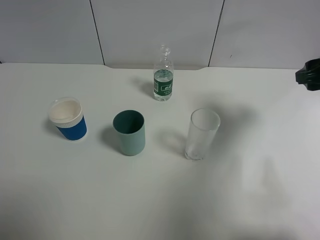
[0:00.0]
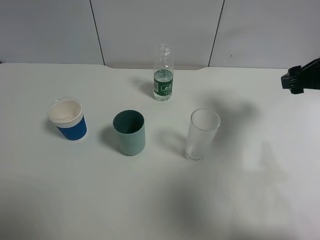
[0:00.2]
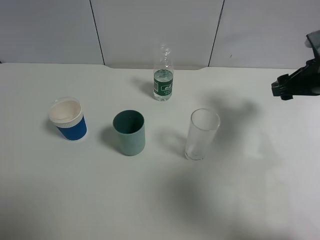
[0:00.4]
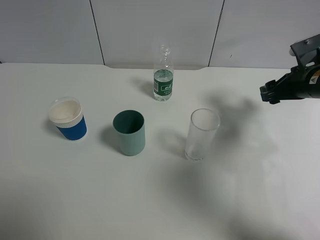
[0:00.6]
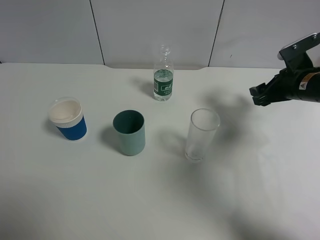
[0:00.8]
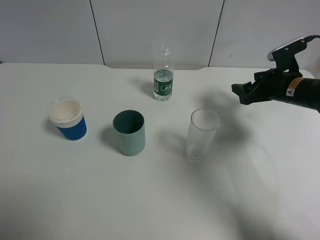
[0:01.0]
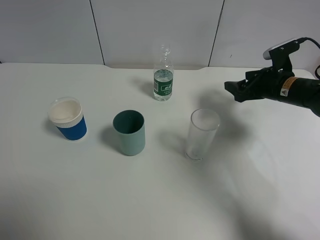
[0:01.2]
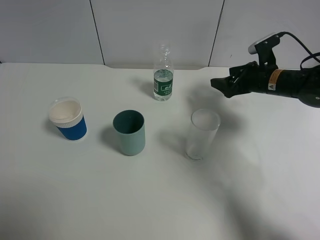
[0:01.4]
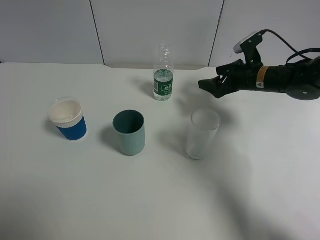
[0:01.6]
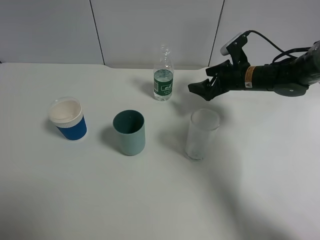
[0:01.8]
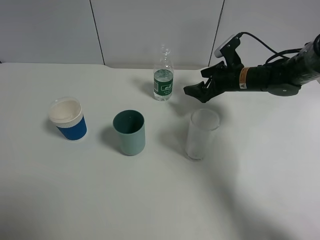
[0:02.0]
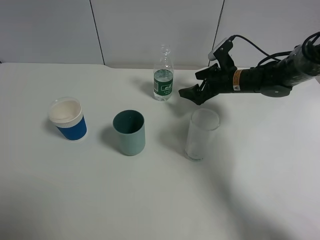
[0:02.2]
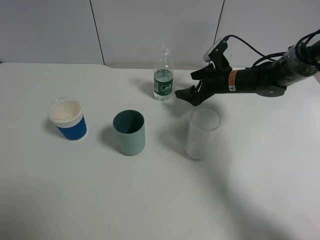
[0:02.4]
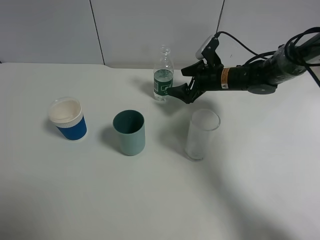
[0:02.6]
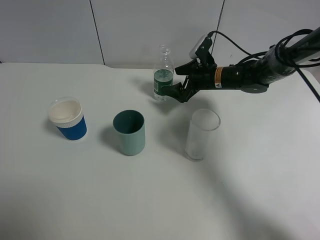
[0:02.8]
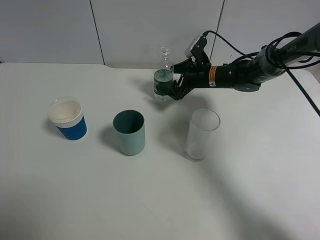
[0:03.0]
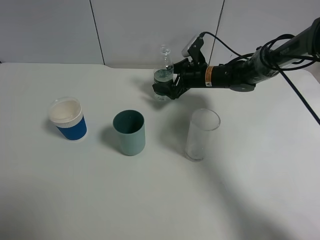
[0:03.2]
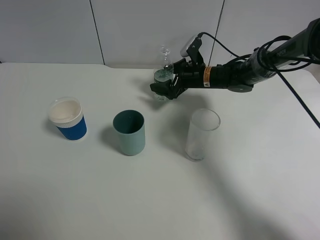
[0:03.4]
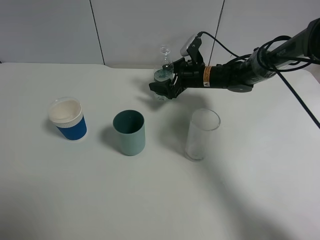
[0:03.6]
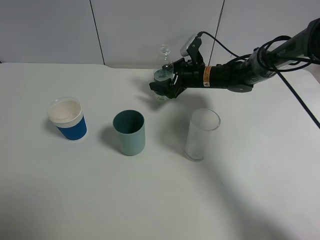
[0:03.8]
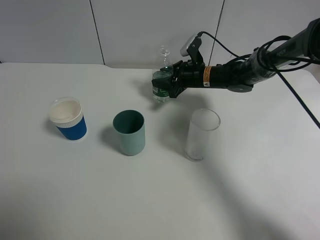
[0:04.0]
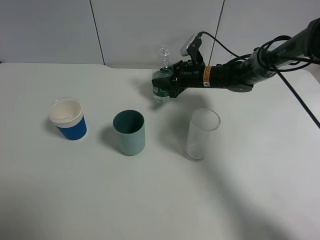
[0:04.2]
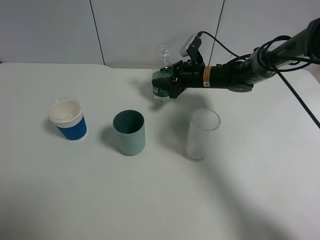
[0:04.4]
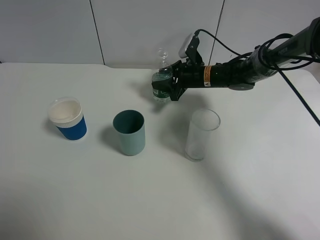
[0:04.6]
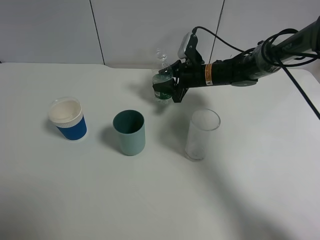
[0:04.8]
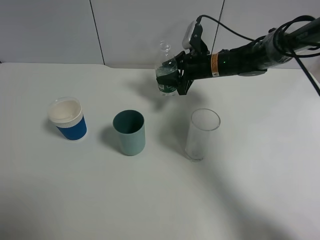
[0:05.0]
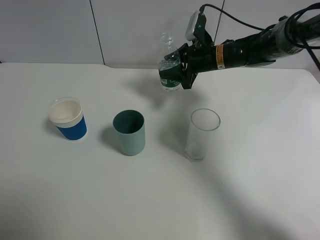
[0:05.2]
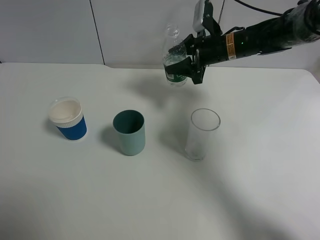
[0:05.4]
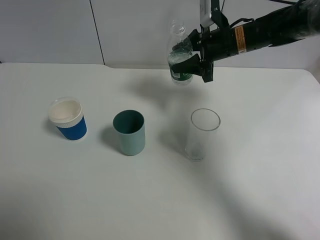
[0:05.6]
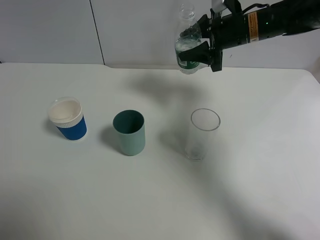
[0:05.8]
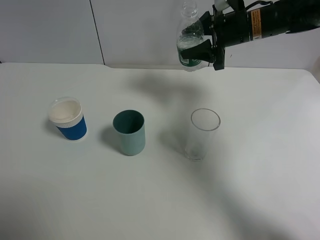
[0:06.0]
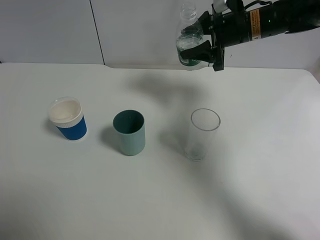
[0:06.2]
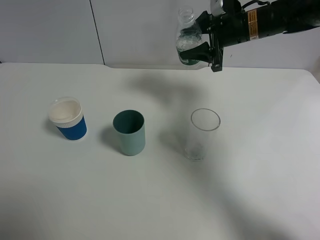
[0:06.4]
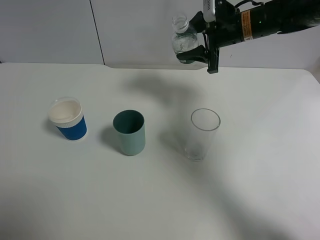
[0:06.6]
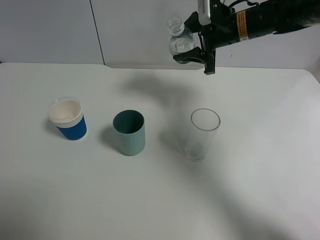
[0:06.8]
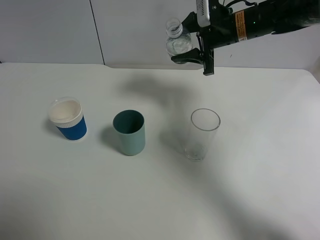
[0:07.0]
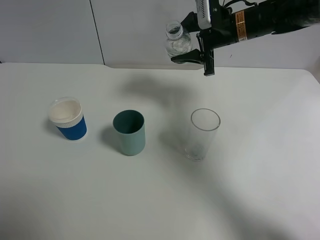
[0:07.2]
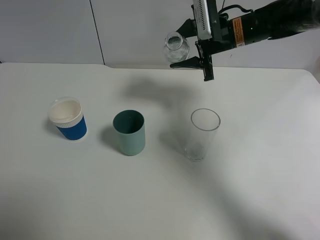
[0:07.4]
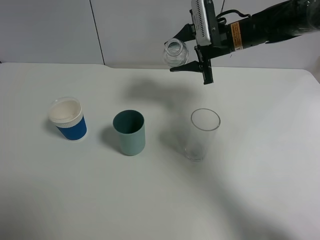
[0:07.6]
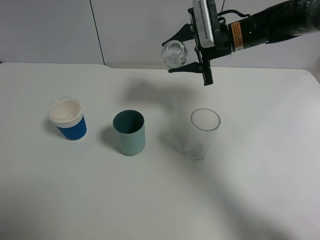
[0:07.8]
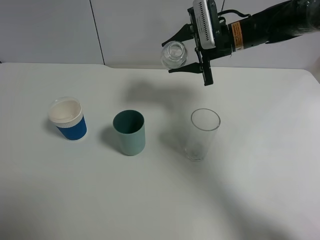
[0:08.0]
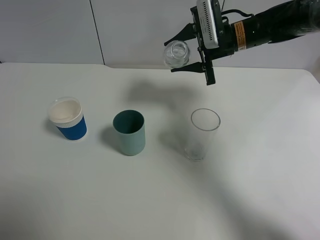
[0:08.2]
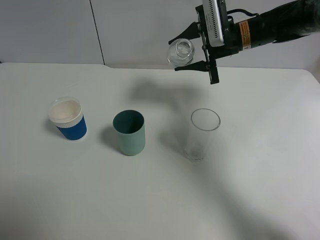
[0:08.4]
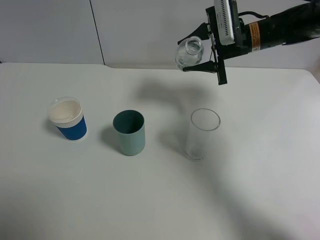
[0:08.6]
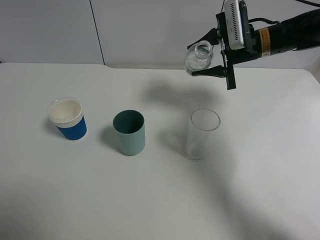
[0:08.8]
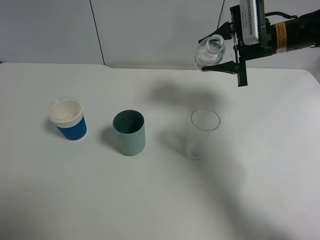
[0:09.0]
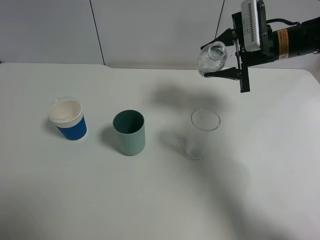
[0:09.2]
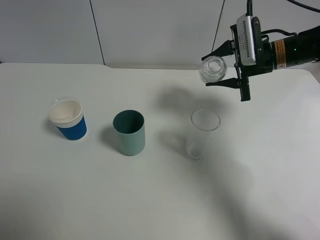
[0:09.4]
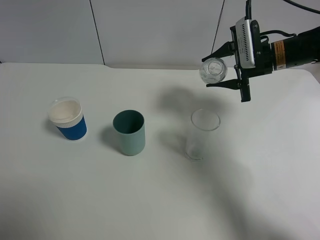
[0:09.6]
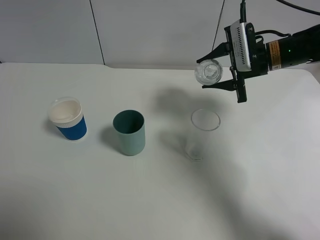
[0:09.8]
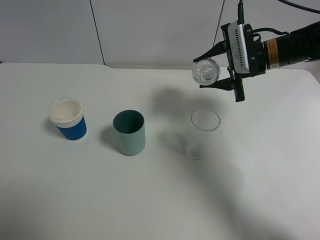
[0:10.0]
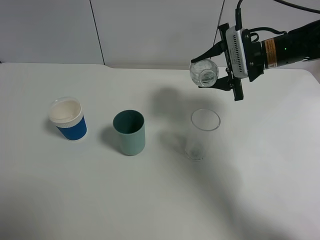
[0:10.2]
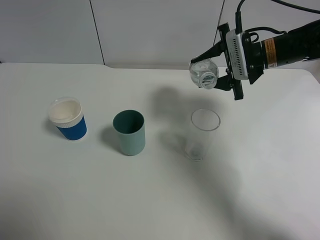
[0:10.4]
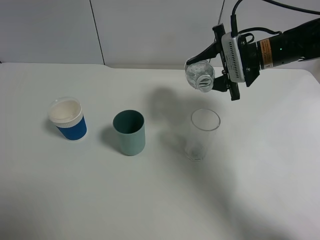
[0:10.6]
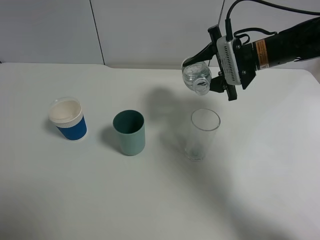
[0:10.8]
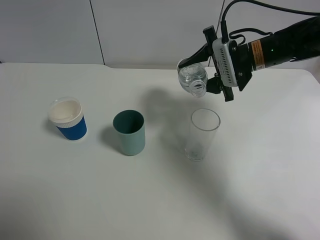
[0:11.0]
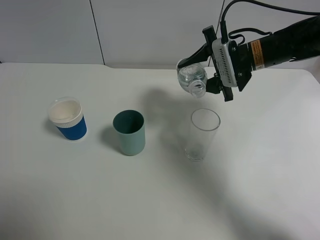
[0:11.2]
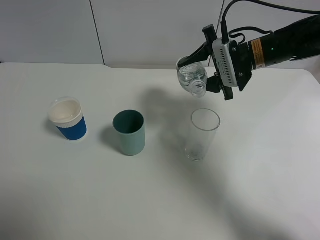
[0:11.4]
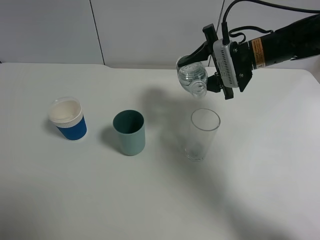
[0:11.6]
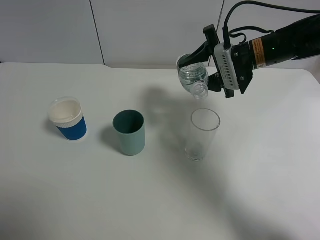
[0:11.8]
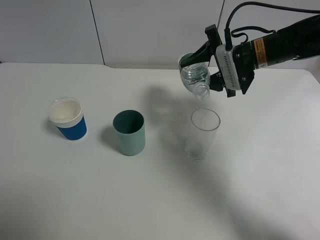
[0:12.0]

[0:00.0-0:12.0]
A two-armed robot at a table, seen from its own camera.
Task of the whole recording: use a gripper to hold the bottle of the drink and pour it into a random cup.
Step, 0:00.0 to 0:04.4: Grasp the mineral water bottle with the right gripper.
0:00.0 to 0:01.6: The right gripper moves forward, downward and to the left, approximately 20 cm.
0:01.6 to 0:03.0: The right gripper goes approximately 10 cm to the left and forward.
0:03.0 to 0:04.4: The right gripper closes up.
0:04.4 to 0:06.0: The right gripper shifts roughly 15 cm upward.
0:07.6 to 0:09.0: The right gripper is displaced to the right by some 10 cm.
0:10.4 to 0:12.0: The grippers stay close to where they were, moving slightly.

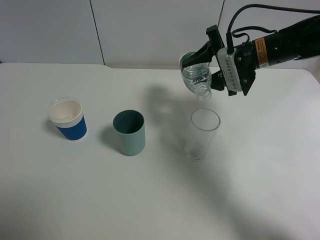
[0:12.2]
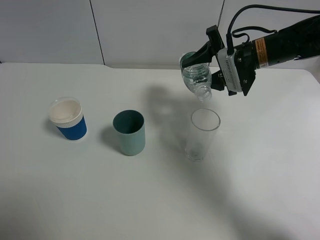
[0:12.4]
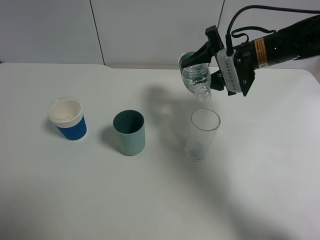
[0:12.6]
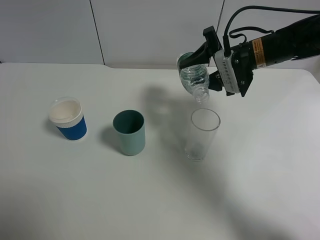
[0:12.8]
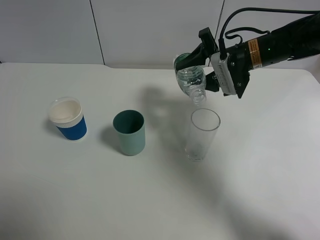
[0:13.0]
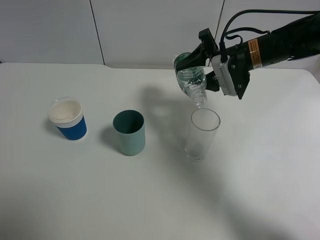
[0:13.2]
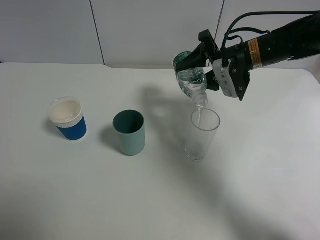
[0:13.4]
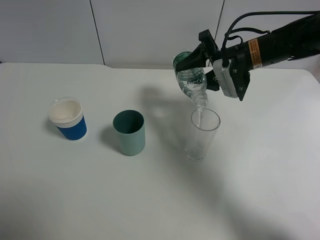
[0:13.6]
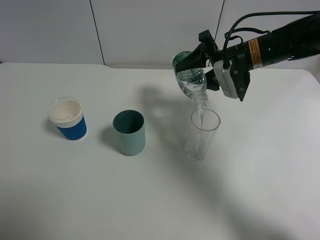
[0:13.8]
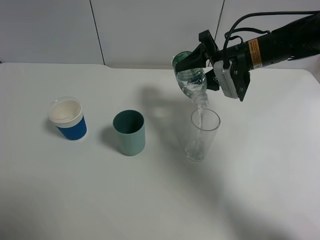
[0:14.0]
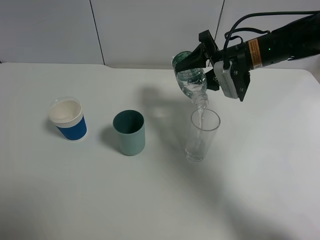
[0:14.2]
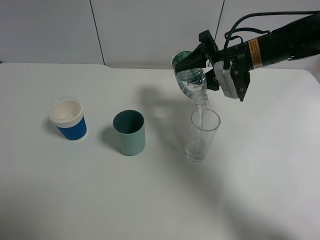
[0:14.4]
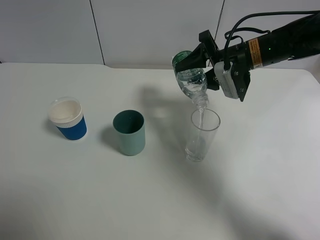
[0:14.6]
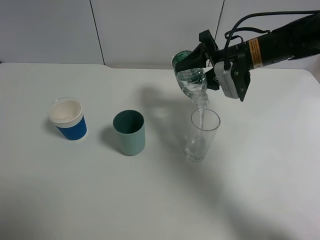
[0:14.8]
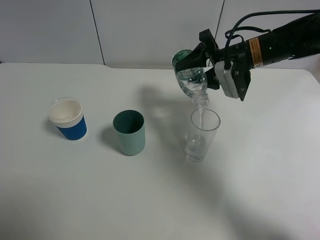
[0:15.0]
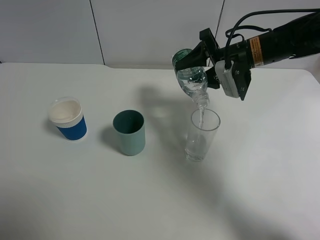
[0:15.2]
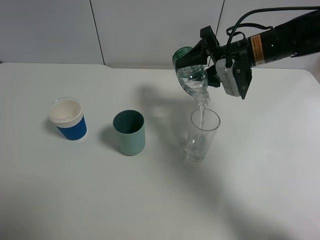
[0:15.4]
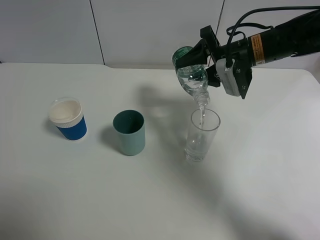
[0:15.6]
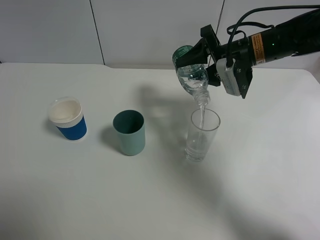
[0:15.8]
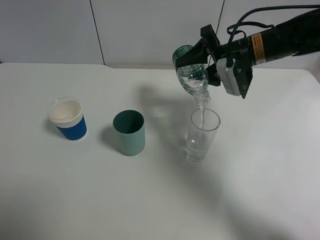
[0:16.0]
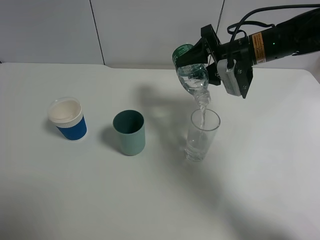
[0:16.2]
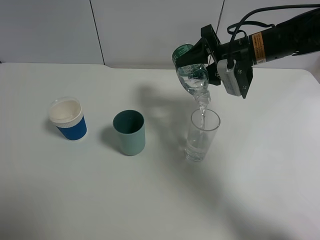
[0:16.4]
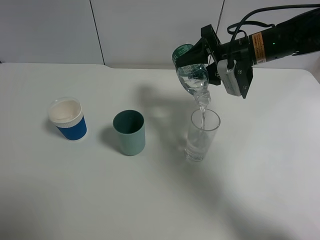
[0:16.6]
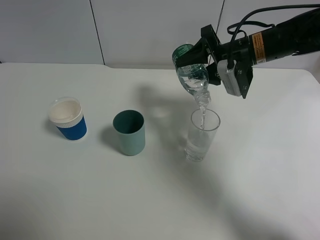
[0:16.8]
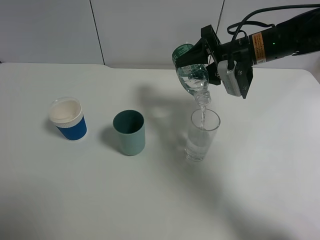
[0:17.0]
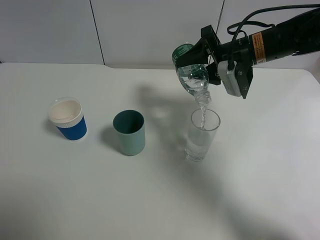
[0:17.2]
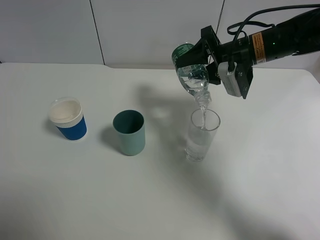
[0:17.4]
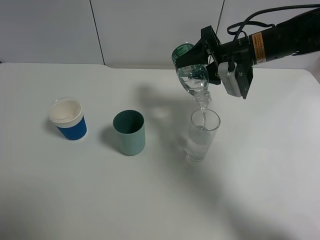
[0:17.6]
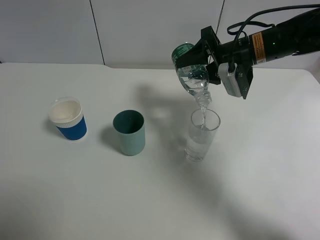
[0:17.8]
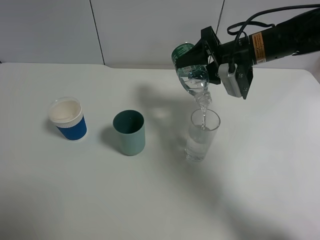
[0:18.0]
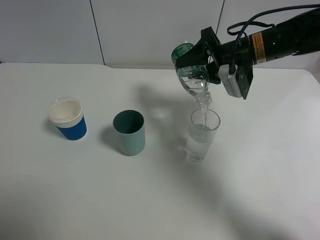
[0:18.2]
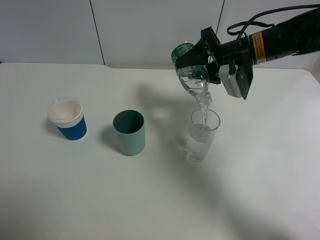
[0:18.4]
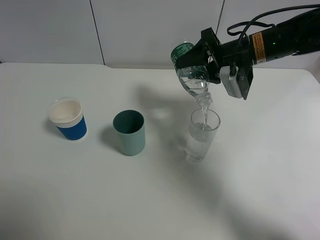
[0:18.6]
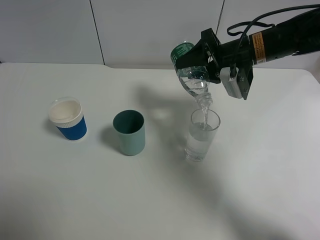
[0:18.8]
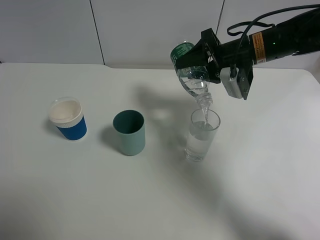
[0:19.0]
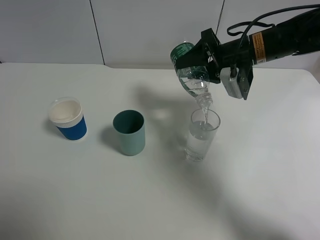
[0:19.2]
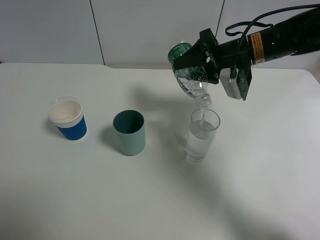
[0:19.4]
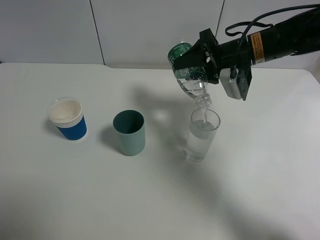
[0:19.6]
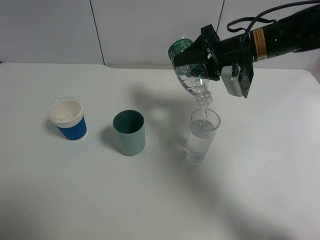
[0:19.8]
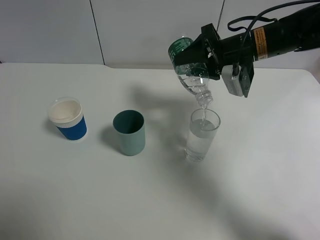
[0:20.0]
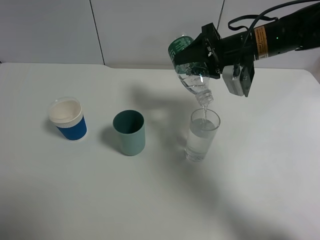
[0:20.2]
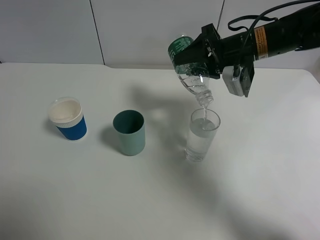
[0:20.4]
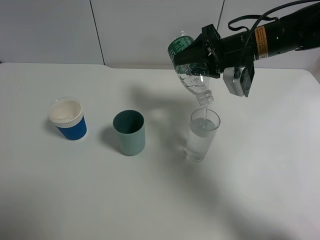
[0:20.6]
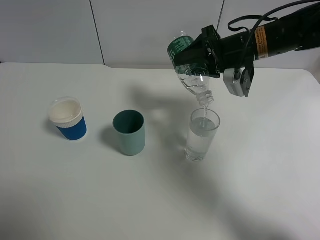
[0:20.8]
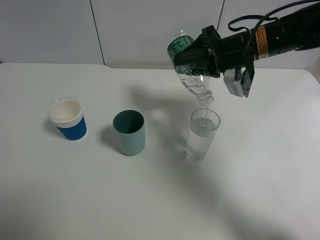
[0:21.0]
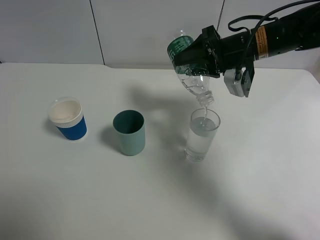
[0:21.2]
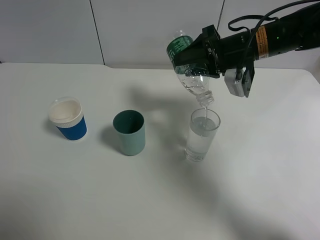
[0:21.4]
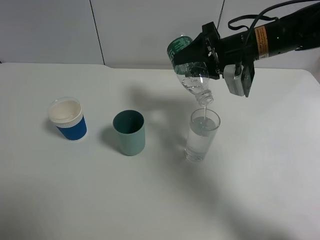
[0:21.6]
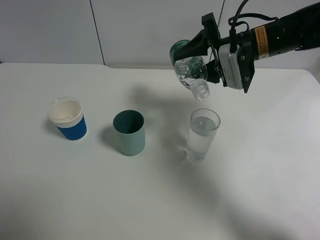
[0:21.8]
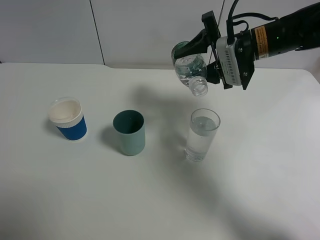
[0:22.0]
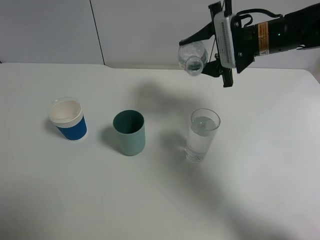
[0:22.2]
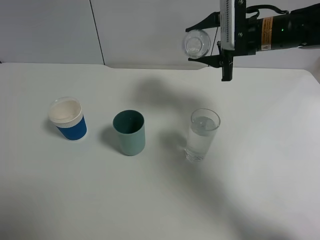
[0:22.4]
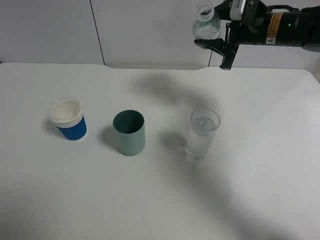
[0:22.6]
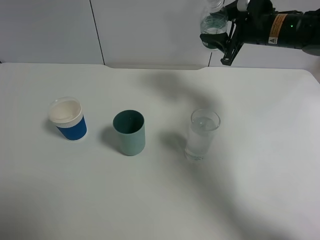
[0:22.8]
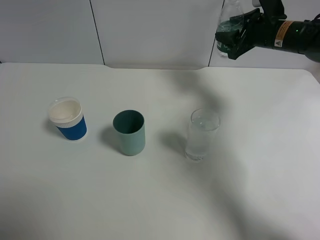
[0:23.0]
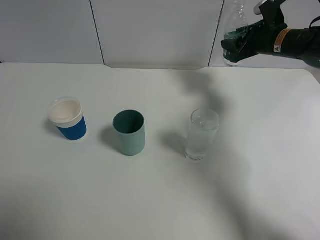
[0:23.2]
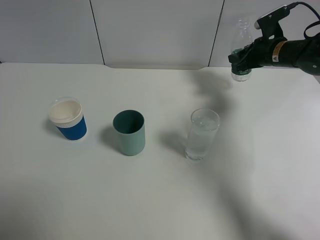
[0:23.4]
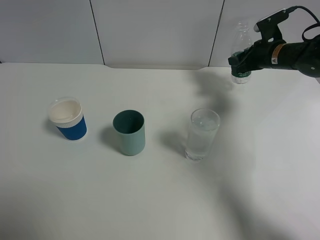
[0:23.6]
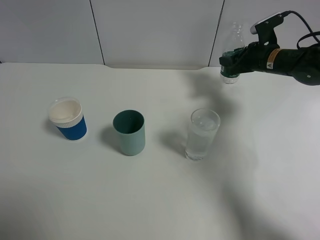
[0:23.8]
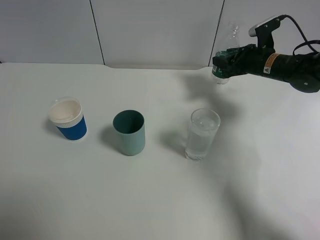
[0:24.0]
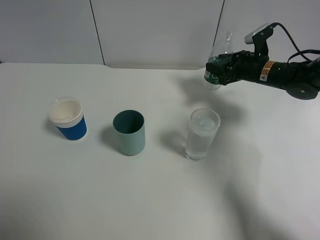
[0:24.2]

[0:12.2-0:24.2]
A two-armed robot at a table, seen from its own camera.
Task of the whole recording: use a gripper to hold the bottle of the drink and pour it into a random cup.
Step, 0:12.2 to 0:22.0: Pour the mineral water into the glass with the right gripper.
0:12.2 to 0:13.8: The grippers make only small movements.
0:13.8 to 0:15.2: Both grippers stay put.
0:15.2 to 0:16.6: Neither gripper changes place.
0:16.6 to 0:18.2: Both grippers stay about where they are.
0:18.2 to 0:21.2: The grippers stay close to where they were, moving slightly.
0:21.2 to 0:22.6: The right gripper changes place by about 5 cm.
0:22.6 to 0:24.2: The right gripper goes some 10 cm downward.
